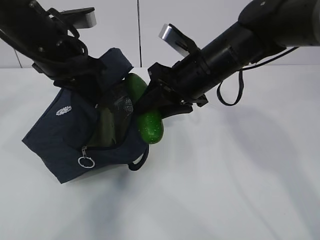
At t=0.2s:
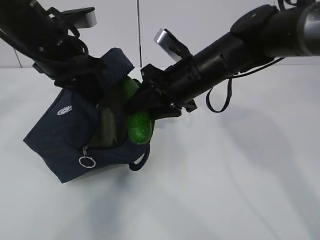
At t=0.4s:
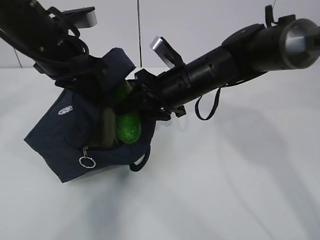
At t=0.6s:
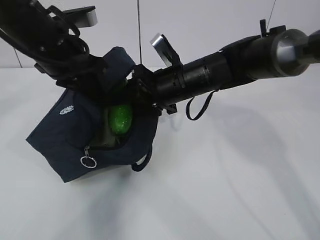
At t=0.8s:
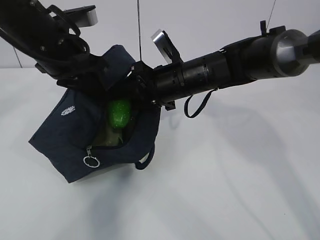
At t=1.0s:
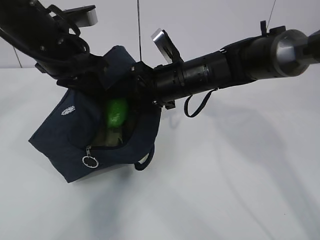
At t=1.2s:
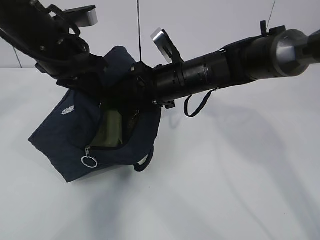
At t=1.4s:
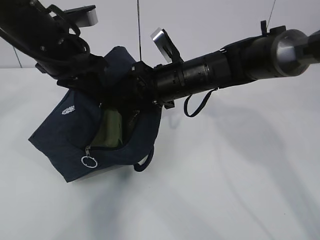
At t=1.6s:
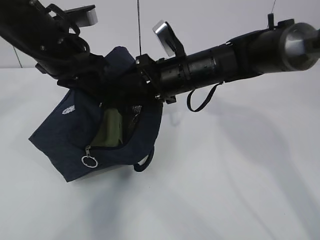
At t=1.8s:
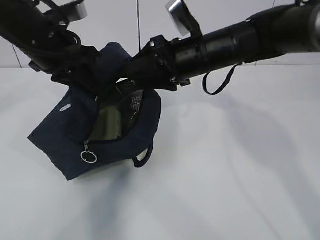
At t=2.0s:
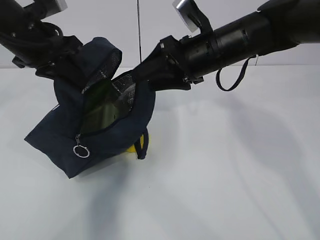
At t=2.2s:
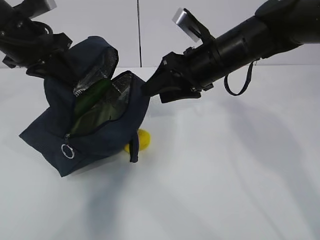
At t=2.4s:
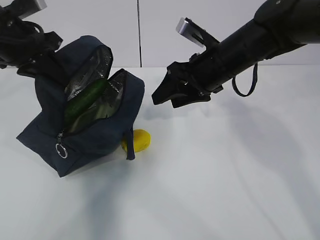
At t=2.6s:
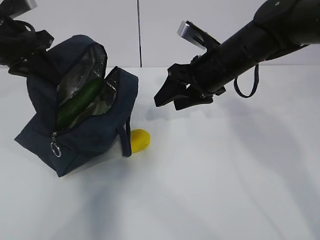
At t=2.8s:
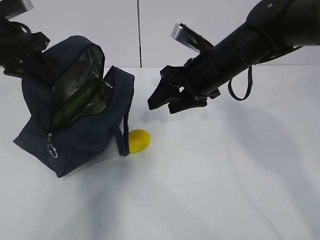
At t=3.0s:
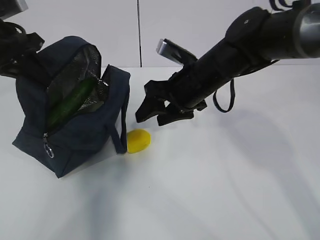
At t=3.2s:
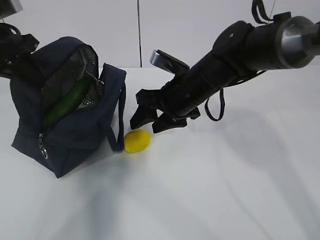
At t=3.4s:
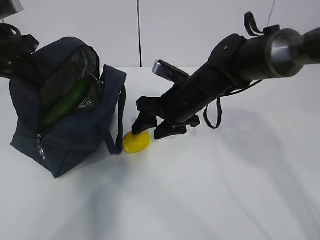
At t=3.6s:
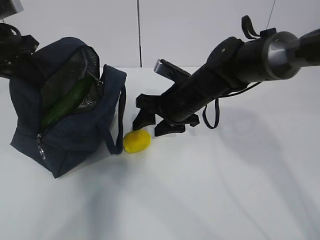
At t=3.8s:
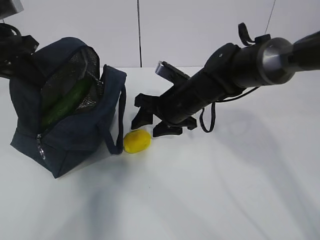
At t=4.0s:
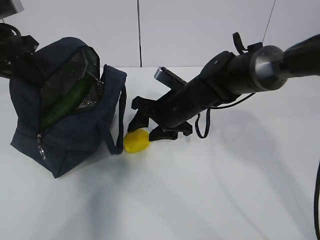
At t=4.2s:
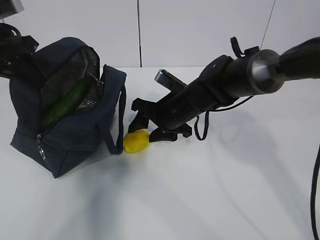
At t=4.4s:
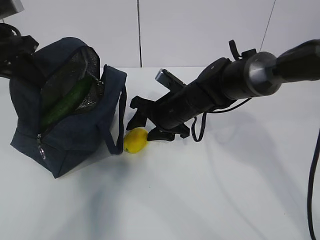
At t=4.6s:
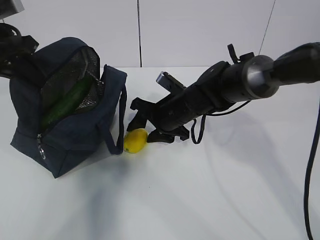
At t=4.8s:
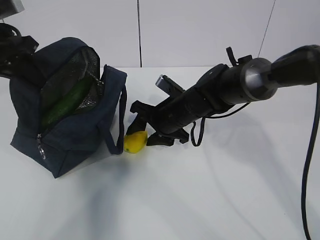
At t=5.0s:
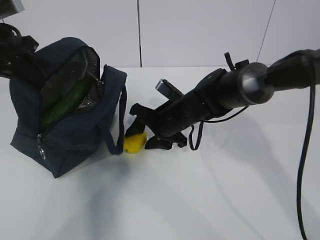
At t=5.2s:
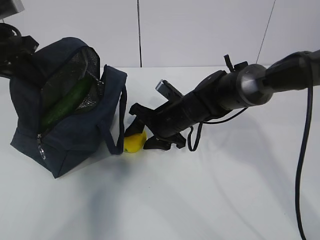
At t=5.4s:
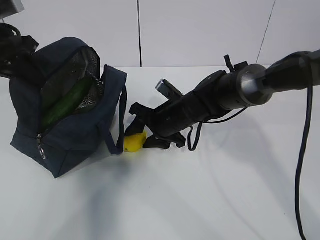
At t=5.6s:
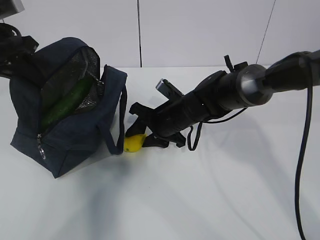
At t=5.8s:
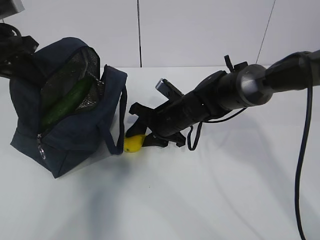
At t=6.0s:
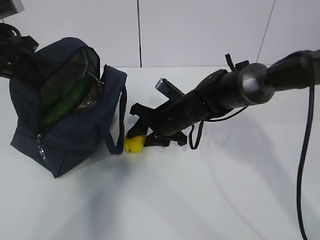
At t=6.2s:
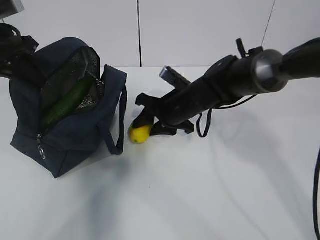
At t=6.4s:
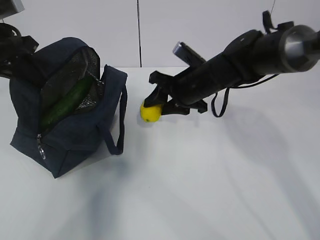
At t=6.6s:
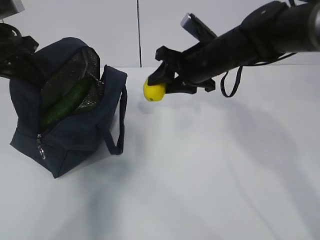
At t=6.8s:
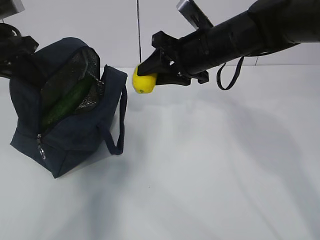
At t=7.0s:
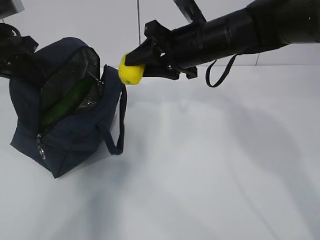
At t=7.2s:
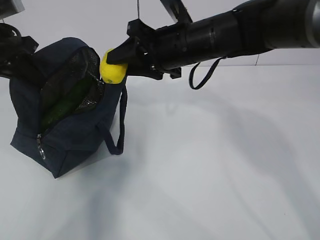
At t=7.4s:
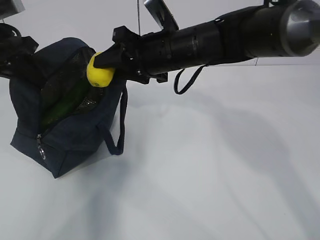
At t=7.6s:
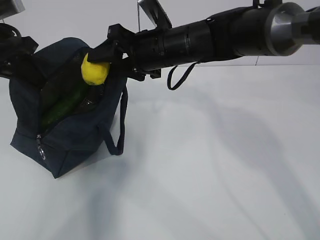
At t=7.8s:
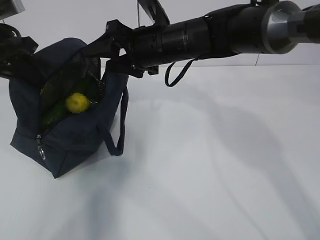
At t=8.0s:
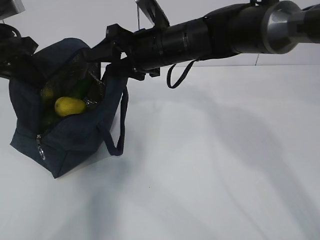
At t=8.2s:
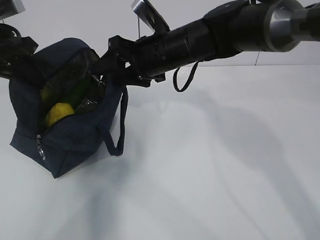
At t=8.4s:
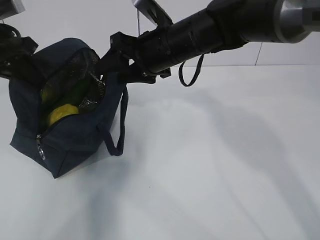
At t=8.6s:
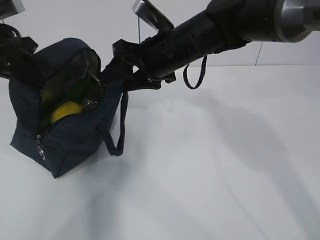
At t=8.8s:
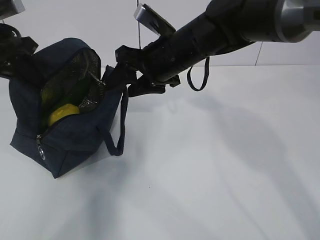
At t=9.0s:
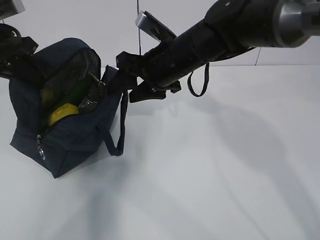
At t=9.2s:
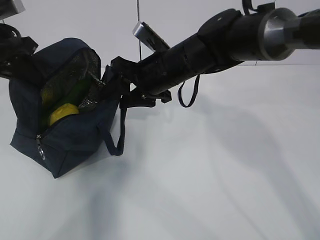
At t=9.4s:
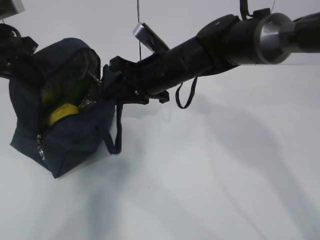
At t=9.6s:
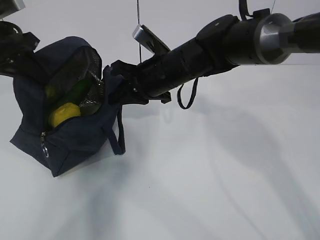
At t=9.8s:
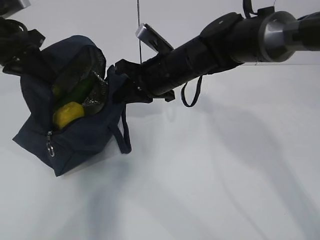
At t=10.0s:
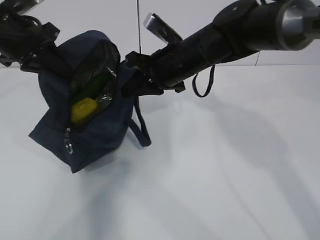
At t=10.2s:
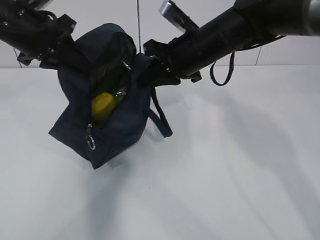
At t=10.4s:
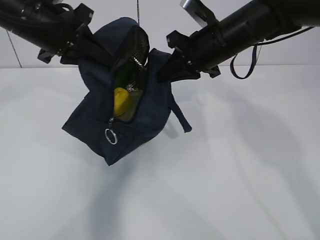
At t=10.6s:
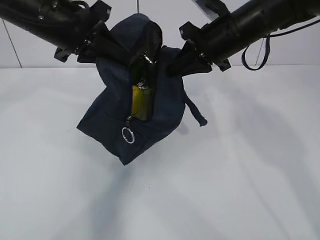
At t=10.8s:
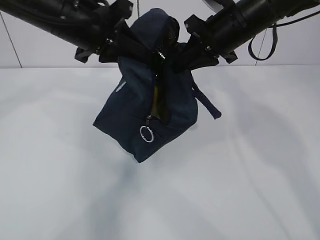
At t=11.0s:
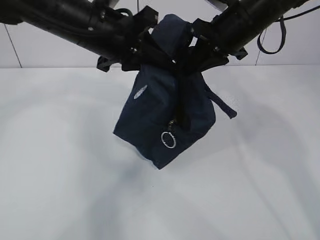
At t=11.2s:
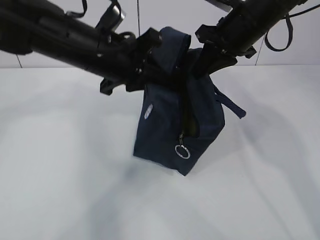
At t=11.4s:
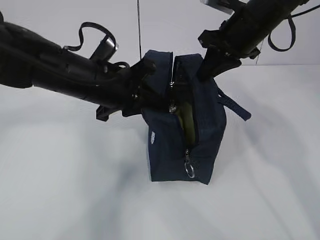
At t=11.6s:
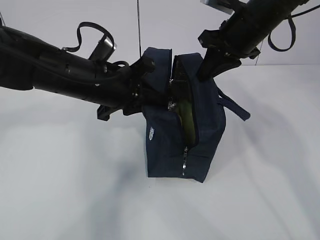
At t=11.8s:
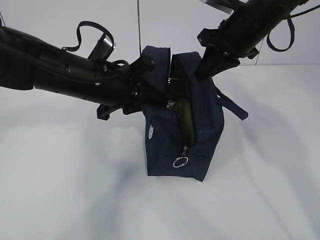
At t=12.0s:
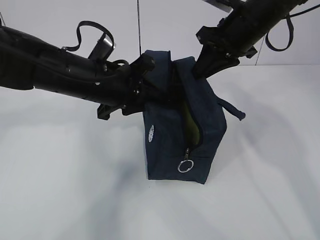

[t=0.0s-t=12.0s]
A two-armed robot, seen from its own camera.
Step, t=1.0s to t=2.6s: Secure the lunch bag with your left hand.
Step, t=2.8s to t=3.8s: Grab the lunch bag with your right hand.
Step, t=4.0s to t=6.2s: Move the lunch bag to the right.
t=1.6s to t=3.0s: The left gripper heads to the left, covering approximately 10 cm.
t=3.0s to t=4.4s: The right gripper travels downward by some 10 cm.
t=4.4s to t=6.0s: The grippers stay close to where they were, moving slightly.
t=6.0s to t=7.6s: The right gripper travels upward by about 15 cm.
t=9.0s to t=10.4s: Both grippers travel together to the right, some 10 cm. The right gripper closes its fingers.
t=10.4s to t=12.0s: The left gripper goes some 10 cm downward and to the right. The right gripper moves about 5 cm.

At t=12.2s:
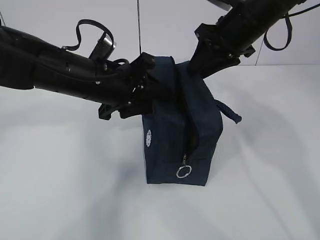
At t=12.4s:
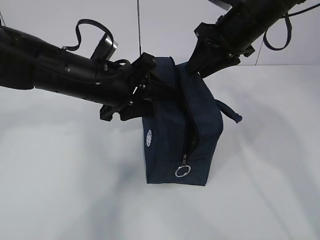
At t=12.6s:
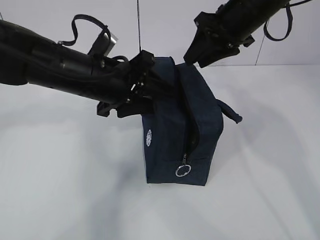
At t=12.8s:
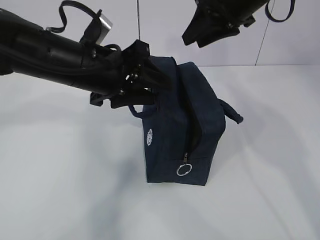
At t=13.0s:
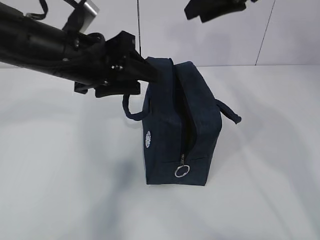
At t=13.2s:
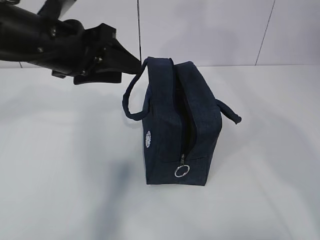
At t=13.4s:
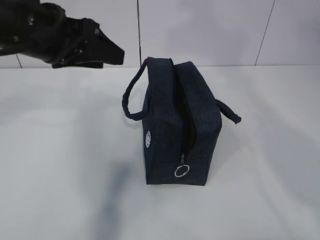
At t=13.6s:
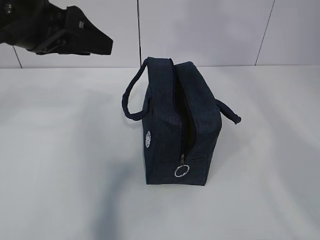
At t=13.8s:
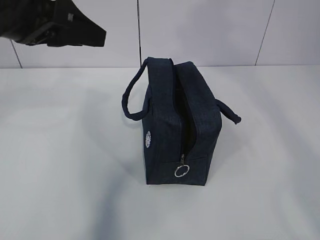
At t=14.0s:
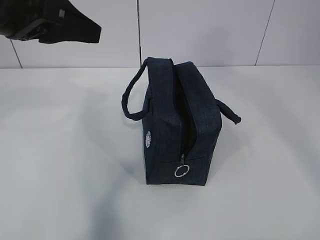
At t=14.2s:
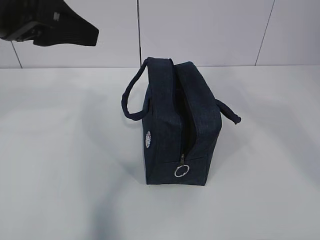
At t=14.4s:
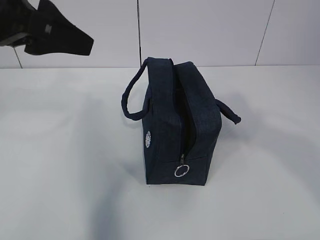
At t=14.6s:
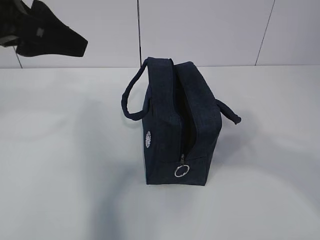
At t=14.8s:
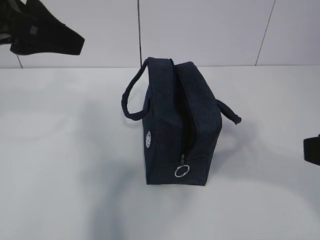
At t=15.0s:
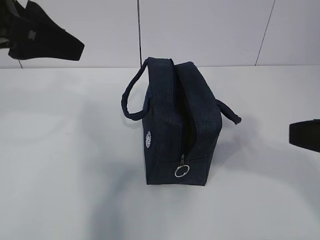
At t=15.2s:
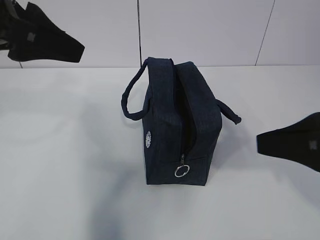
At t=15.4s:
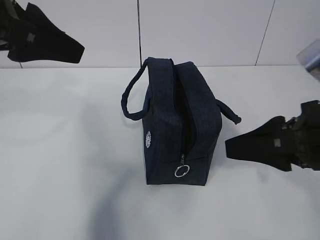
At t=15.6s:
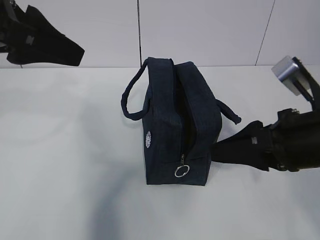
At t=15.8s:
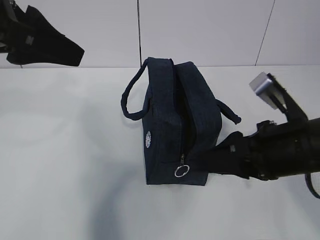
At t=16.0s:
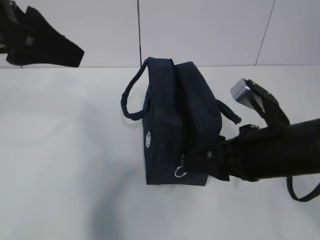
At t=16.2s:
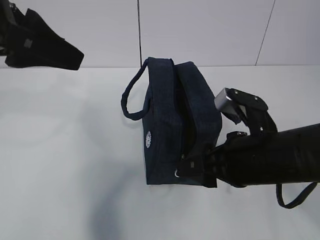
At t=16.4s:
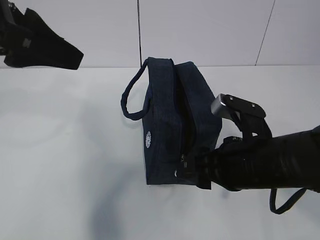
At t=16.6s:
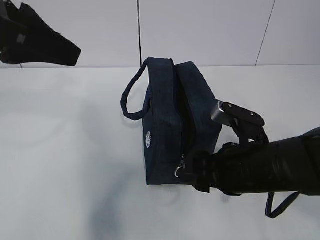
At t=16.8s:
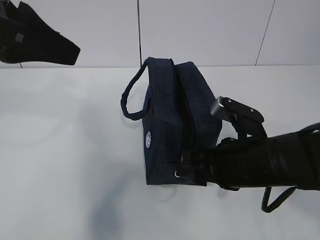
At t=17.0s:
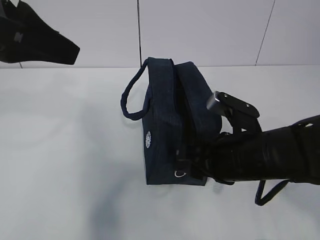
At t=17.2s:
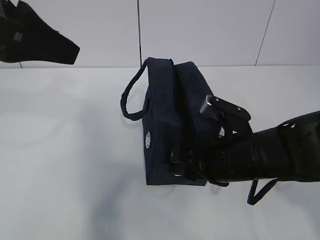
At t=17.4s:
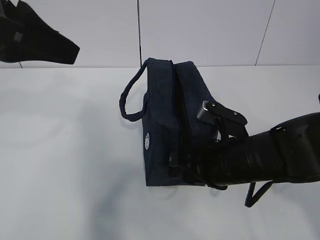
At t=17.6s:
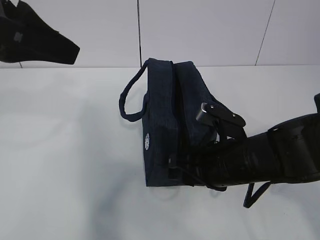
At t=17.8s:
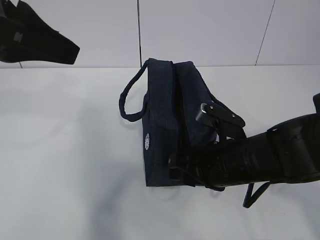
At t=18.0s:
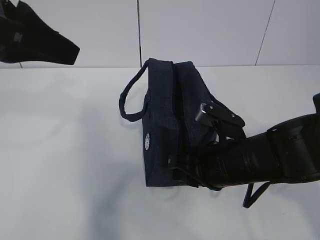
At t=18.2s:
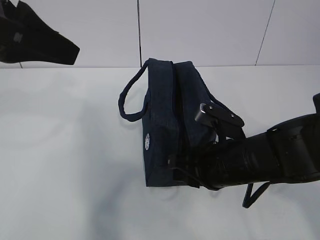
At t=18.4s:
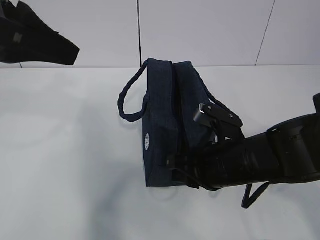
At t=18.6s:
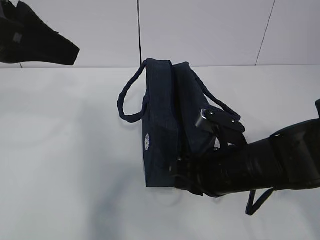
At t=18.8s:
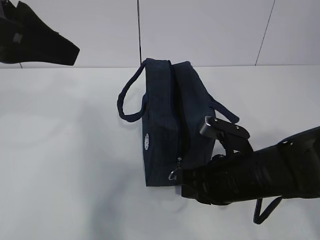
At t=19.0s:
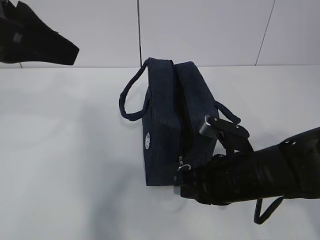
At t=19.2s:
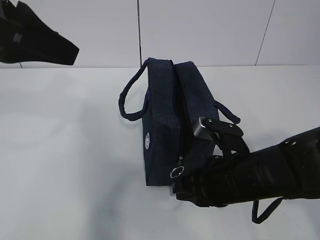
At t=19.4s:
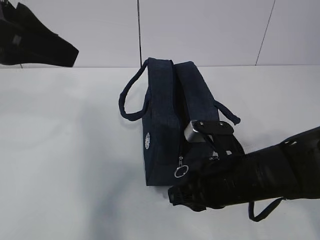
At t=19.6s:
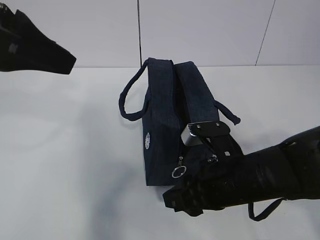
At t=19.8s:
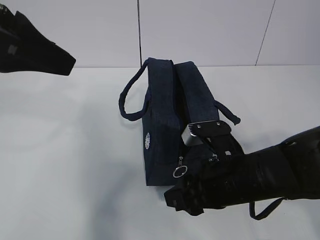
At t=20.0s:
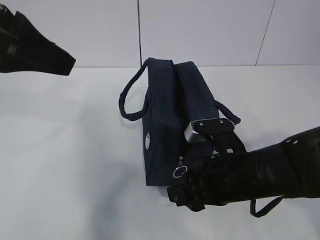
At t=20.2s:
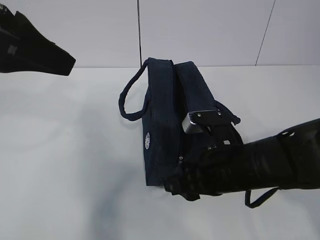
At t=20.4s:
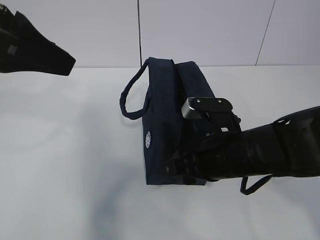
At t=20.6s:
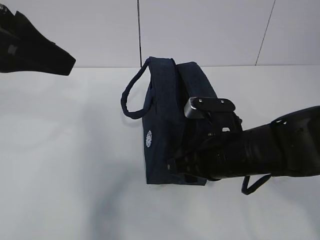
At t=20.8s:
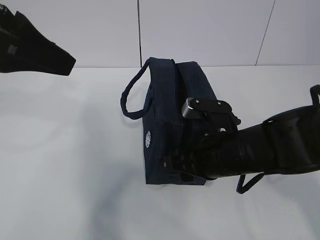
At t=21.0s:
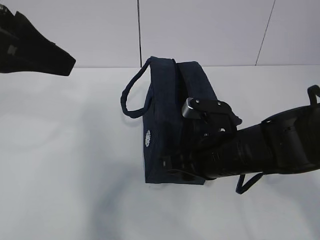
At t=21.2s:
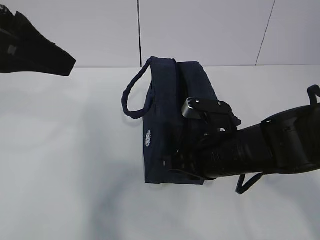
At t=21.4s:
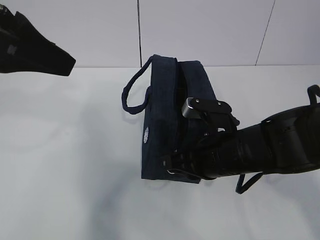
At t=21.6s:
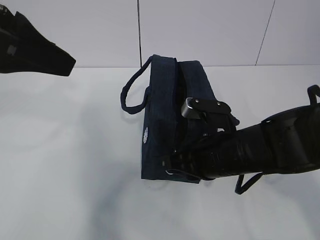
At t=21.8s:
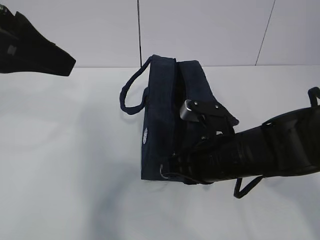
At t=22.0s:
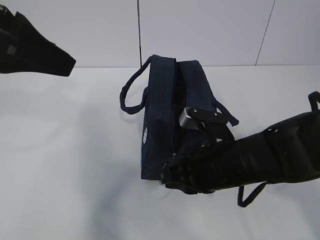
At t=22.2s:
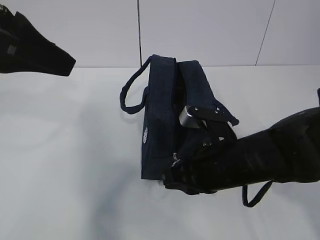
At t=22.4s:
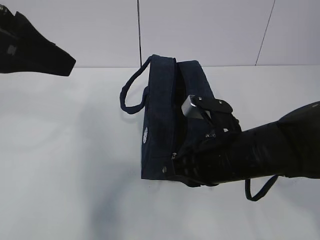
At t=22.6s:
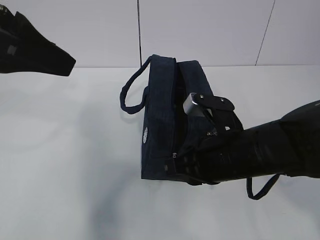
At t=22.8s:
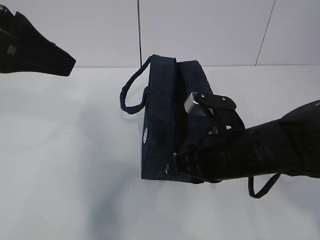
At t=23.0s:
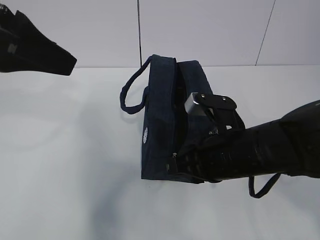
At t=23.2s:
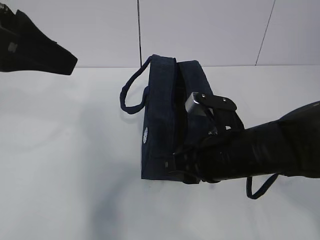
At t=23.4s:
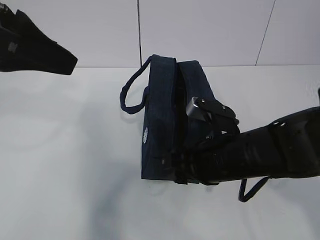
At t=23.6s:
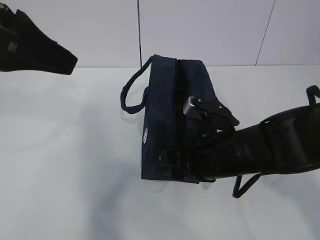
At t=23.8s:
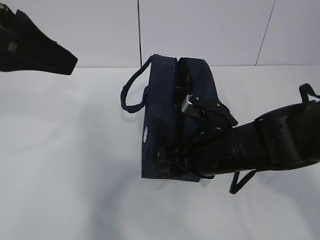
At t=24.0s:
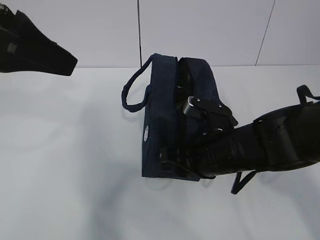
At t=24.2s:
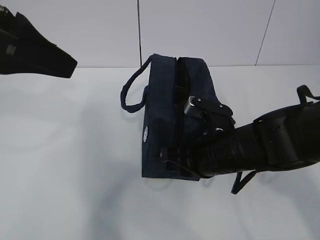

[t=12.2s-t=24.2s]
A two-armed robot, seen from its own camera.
t=12.2s to t=13.8s: The left gripper goes about 15 cm upward and to the left. The right gripper shifts approximately 35 cm upward and backward.
t=13.8s to t=15.2s: The right gripper heads downward, covering about 30 cm.
t=15.2s to t=16.6s: The right gripper moves downward, to the left and forward, some 15 cm.
t=16.6s to t=18.2s: The right gripper closes up.
t=19.8s to t=21.2s: The right gripper closes up.
t=21.2s to t=22.6s: There are only small adjustments of the grippers.
t=22.6s to t=24.2s: The right gripper opens, then closes once more.
